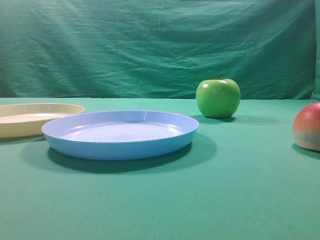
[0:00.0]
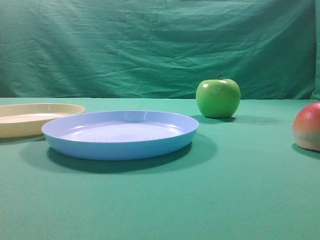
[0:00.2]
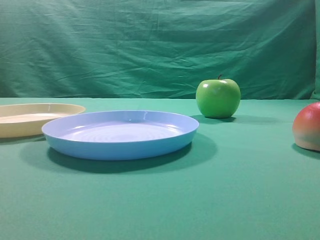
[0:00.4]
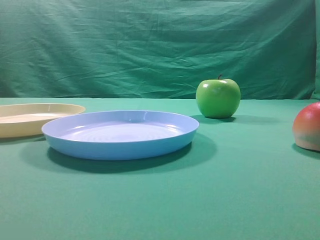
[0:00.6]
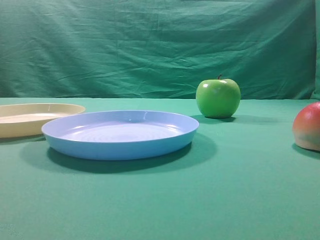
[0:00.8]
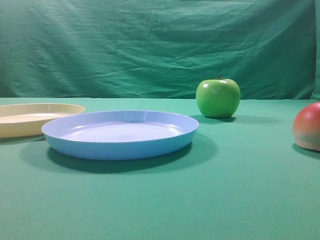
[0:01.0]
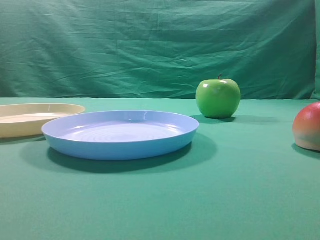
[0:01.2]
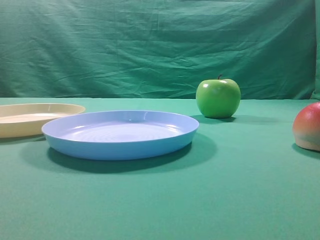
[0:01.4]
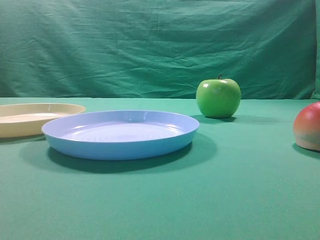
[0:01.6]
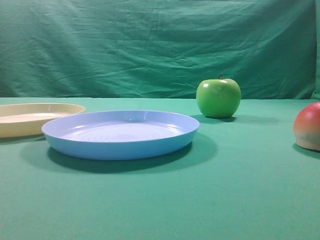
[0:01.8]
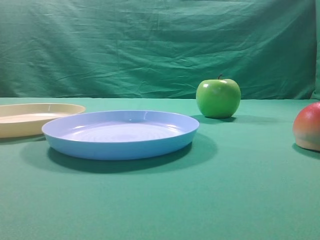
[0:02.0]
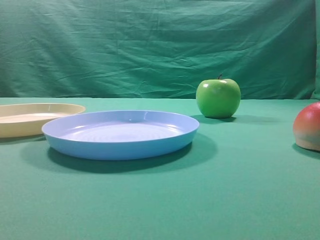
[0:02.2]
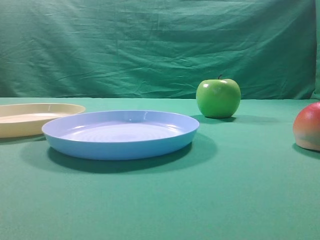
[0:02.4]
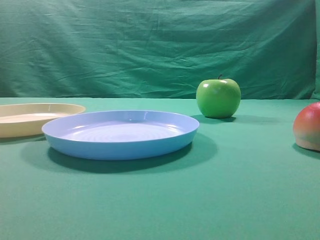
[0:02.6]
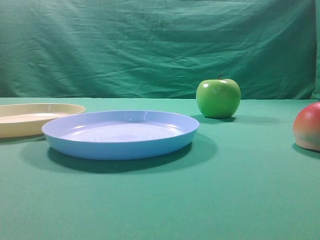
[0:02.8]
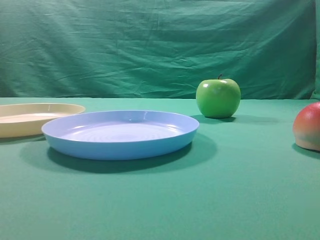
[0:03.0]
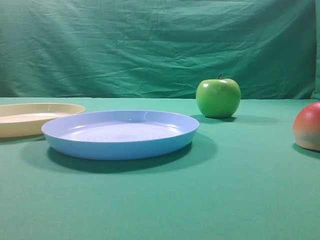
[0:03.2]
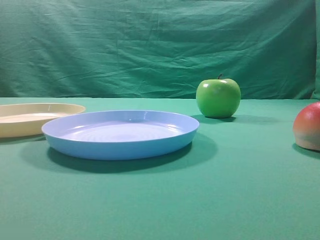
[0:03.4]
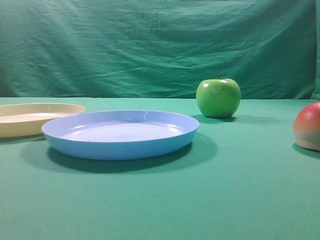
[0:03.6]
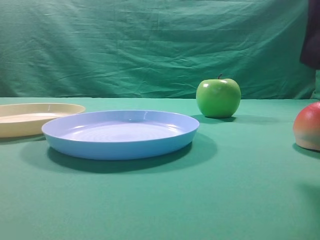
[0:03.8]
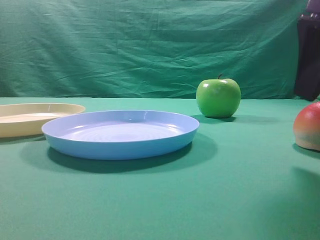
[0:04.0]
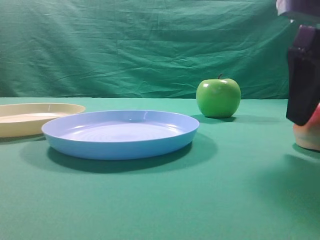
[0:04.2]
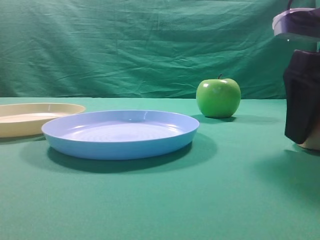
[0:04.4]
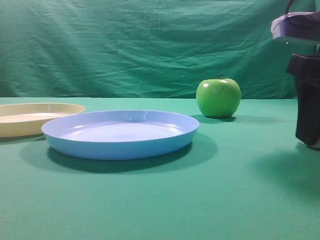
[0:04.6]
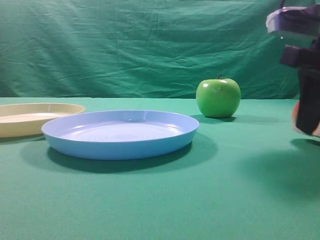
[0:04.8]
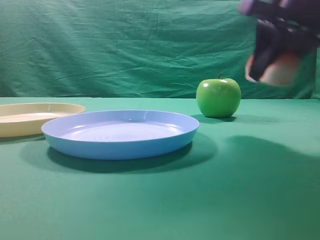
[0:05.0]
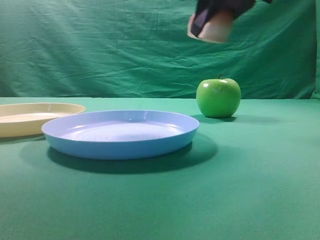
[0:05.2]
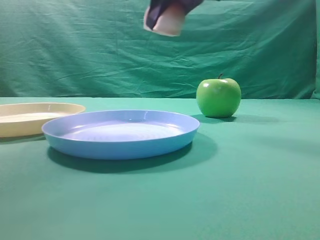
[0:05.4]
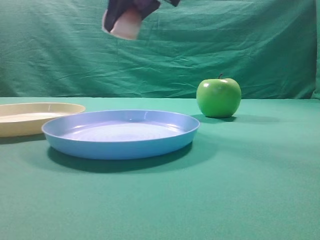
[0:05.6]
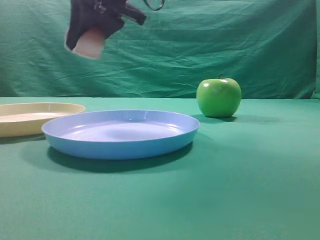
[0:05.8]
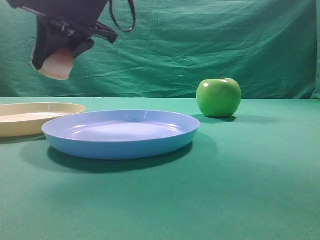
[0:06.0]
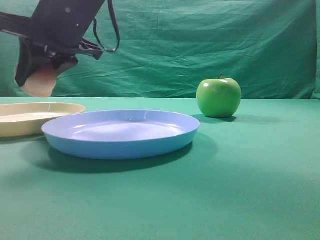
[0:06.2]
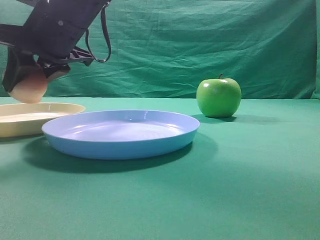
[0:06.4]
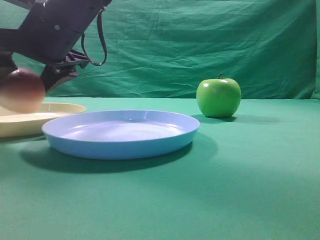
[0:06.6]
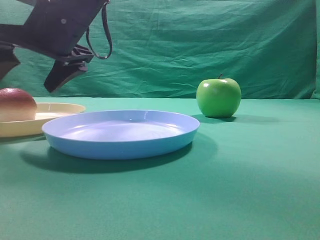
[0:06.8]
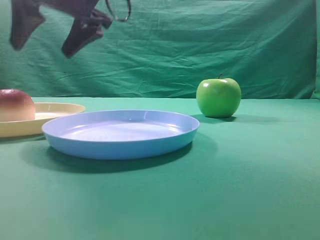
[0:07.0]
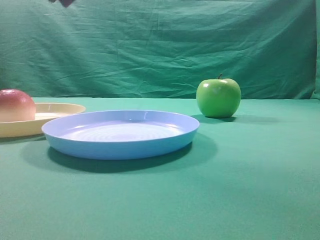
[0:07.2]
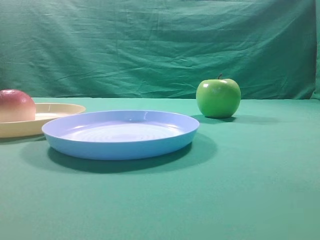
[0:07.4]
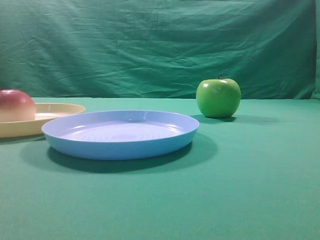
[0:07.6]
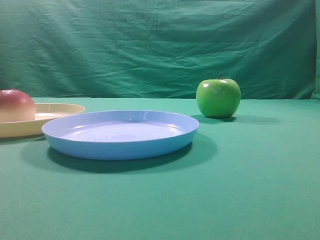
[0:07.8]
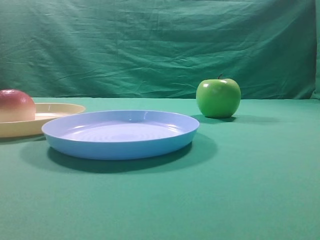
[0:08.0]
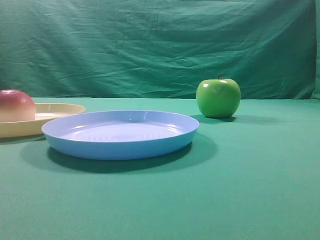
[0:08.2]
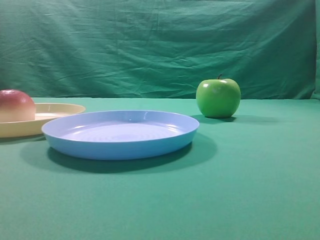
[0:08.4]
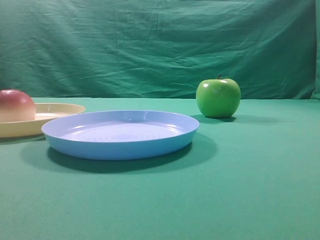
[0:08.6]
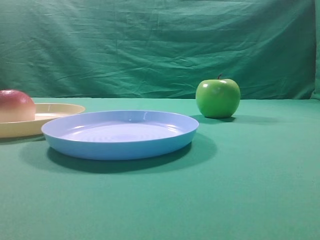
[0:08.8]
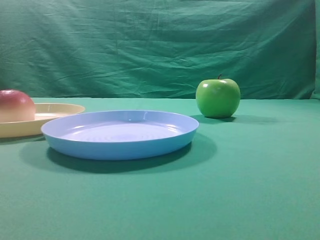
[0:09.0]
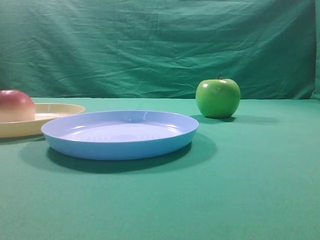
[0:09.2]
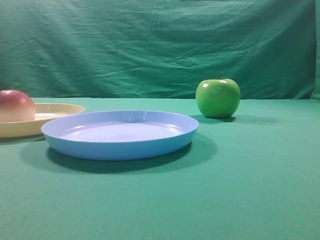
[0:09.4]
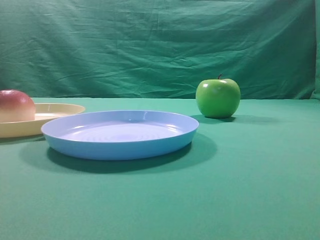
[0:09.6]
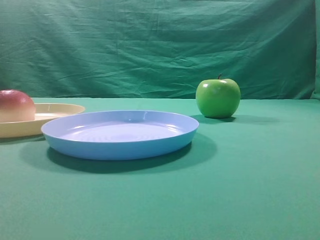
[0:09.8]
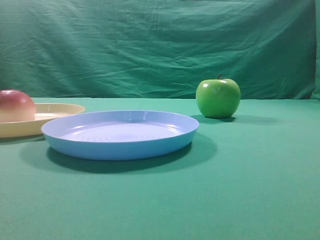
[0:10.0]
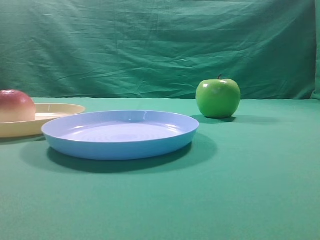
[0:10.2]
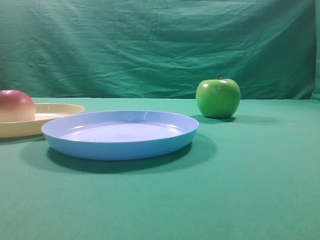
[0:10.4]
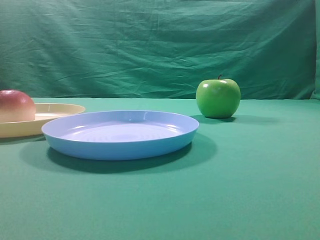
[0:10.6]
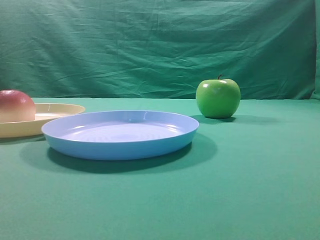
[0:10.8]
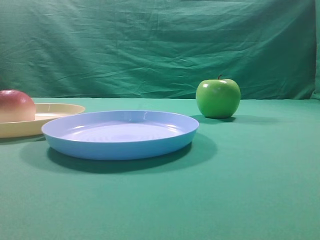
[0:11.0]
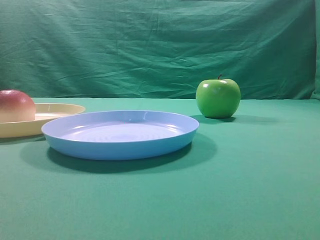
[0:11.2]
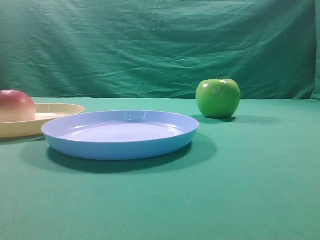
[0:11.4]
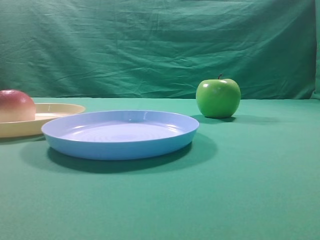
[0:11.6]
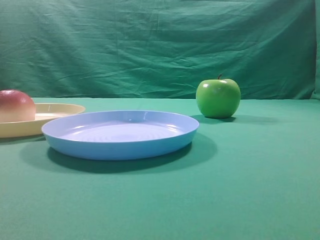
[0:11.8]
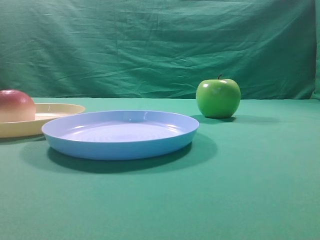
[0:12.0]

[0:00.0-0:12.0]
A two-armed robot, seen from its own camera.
Step, 0:05.0 to 0:06.8: Place the picked object on the yellow plate.

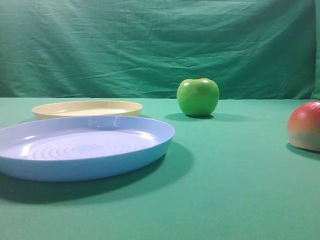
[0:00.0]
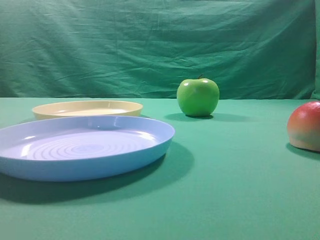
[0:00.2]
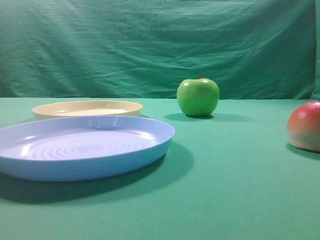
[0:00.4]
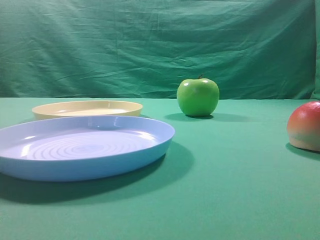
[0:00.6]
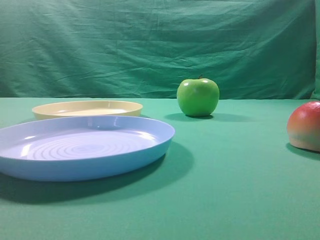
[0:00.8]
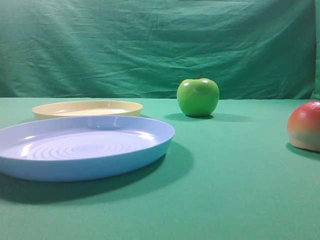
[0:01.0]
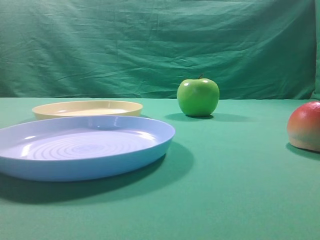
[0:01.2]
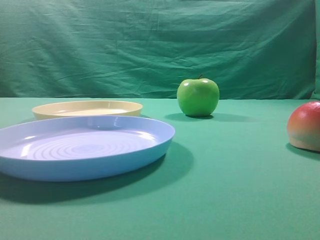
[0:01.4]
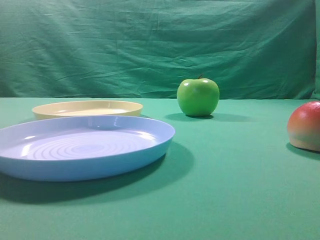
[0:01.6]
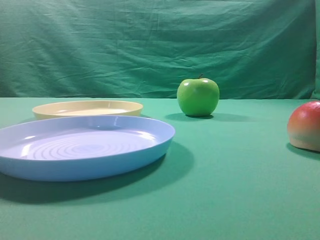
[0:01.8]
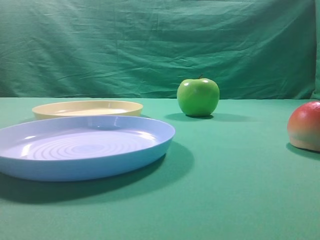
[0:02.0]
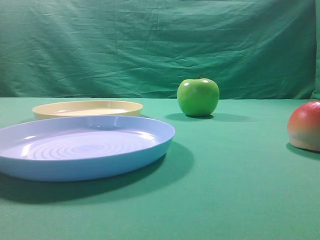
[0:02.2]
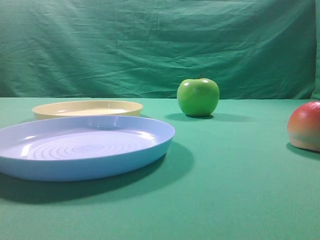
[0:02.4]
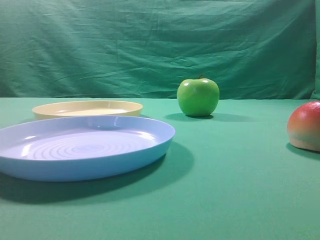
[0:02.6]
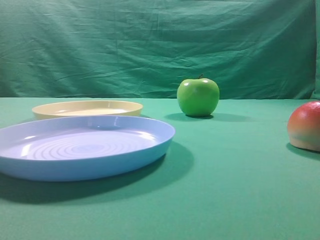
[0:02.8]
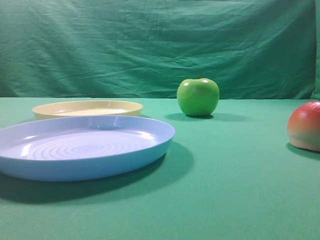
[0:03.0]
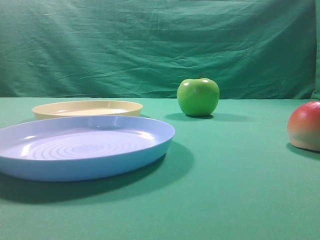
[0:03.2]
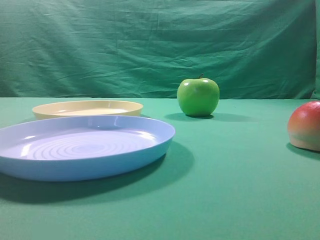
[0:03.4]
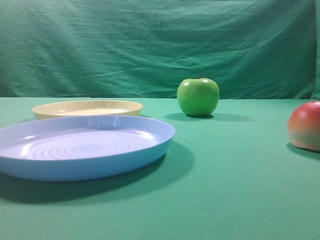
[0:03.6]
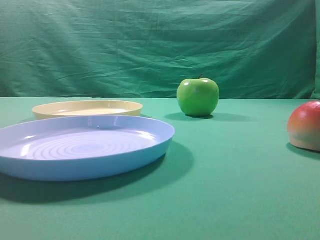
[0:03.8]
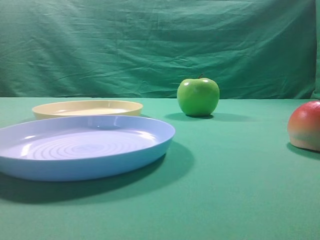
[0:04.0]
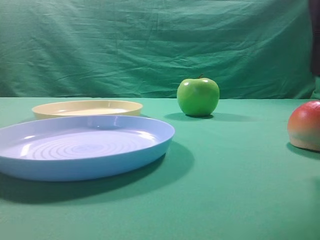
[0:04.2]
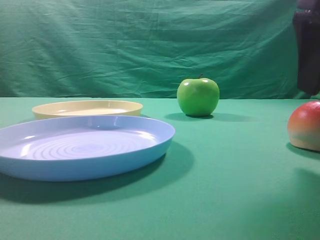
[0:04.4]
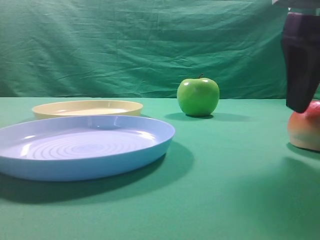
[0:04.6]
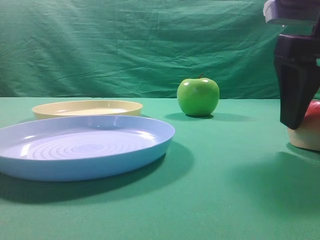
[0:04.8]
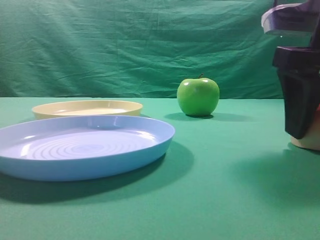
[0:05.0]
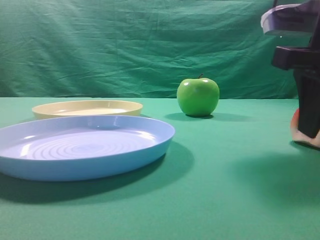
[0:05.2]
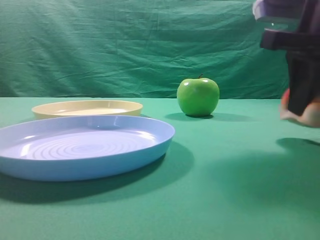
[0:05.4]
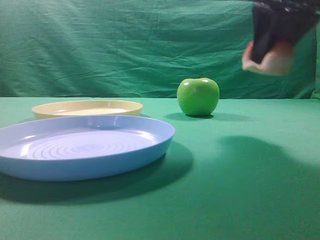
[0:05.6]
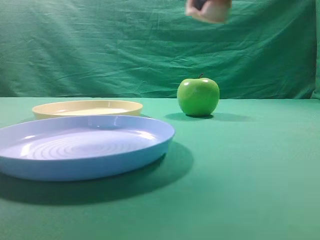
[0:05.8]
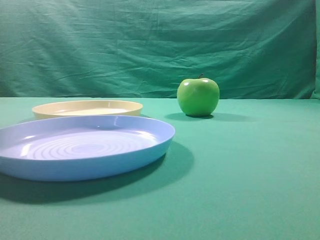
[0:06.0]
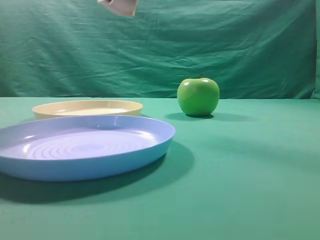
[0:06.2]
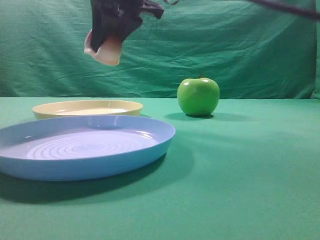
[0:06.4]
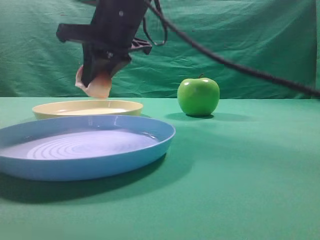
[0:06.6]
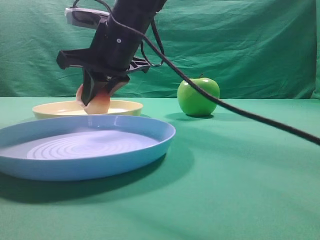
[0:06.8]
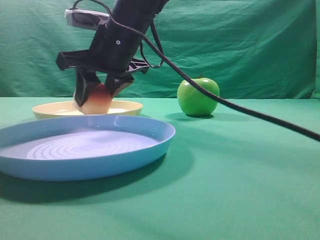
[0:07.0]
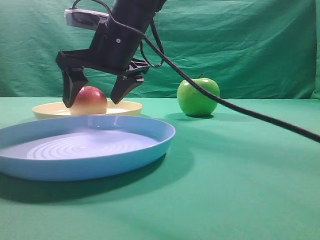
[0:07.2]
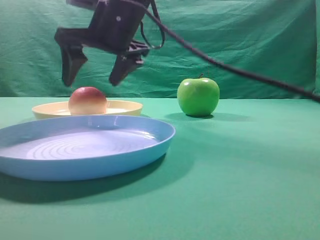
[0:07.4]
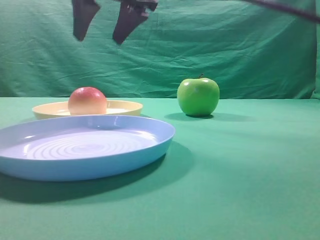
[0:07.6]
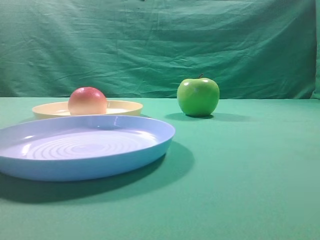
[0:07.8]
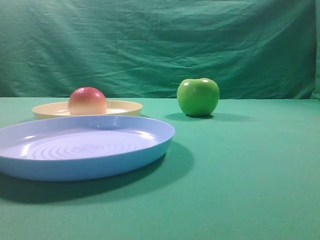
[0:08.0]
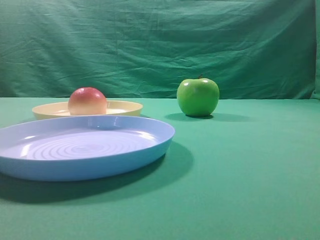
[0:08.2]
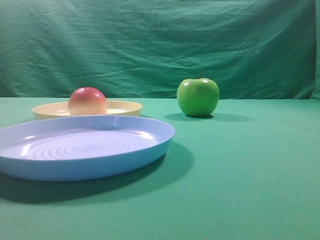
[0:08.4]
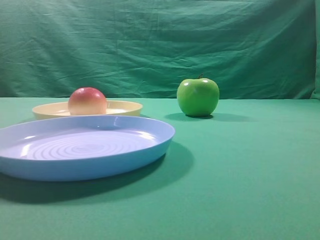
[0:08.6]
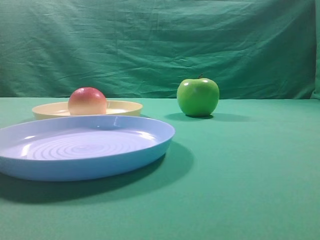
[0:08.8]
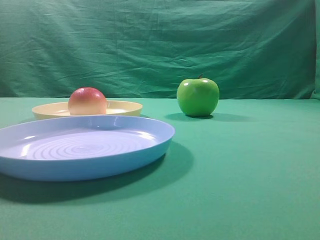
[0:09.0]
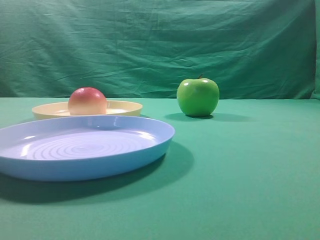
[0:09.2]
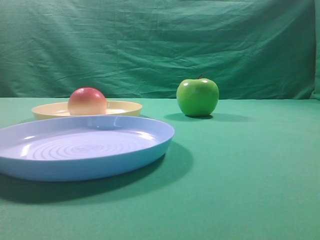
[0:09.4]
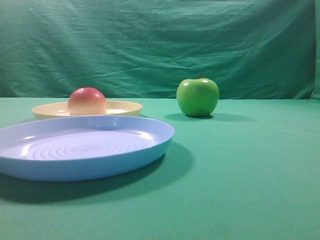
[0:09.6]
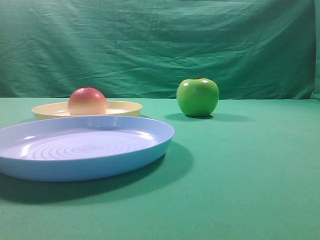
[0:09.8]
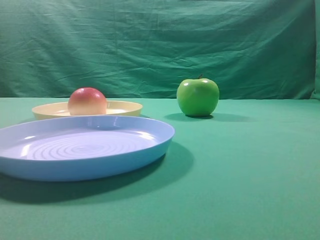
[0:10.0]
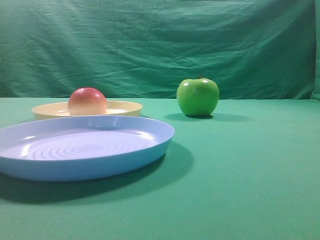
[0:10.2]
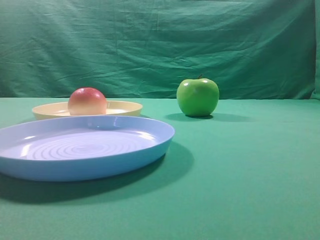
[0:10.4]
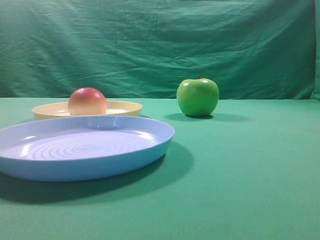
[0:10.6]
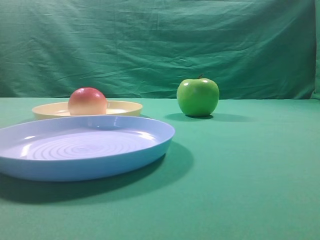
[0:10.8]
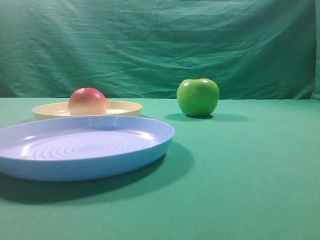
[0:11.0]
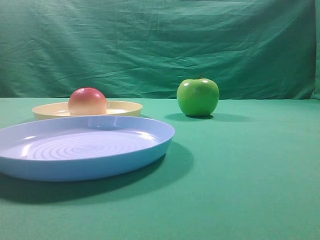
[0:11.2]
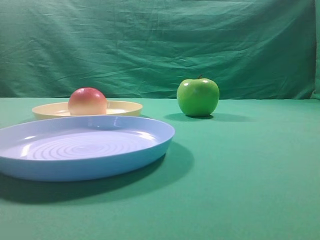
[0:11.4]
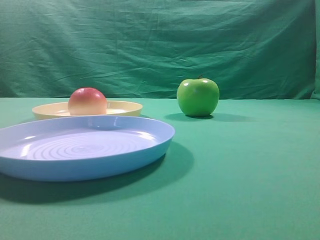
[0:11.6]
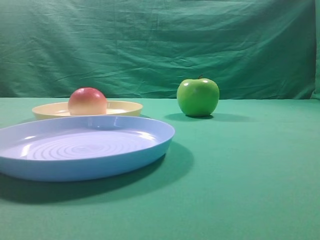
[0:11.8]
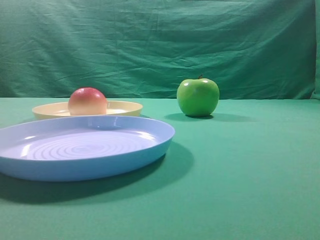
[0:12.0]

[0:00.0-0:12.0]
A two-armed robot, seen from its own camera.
Step, 0:05.6 to 0:07.4: Place the picked object on the yellow plate.
